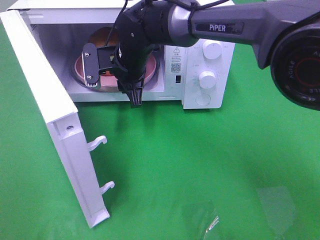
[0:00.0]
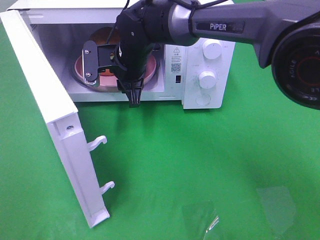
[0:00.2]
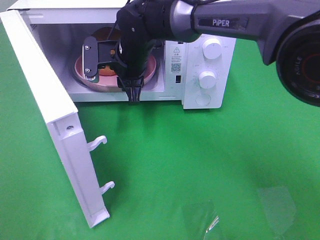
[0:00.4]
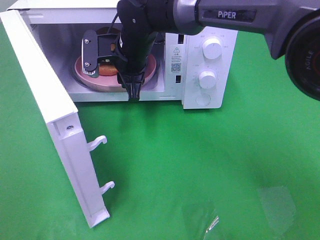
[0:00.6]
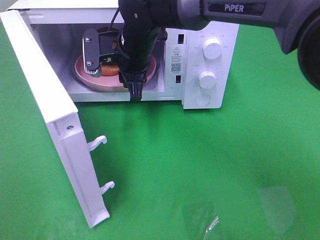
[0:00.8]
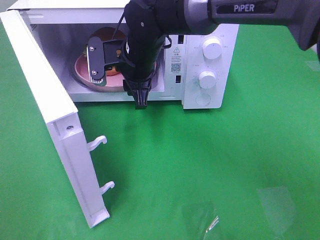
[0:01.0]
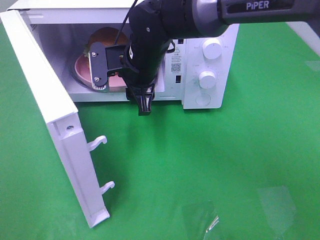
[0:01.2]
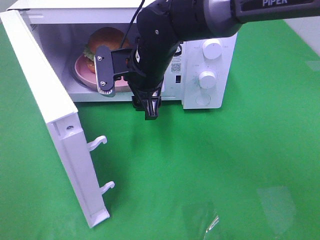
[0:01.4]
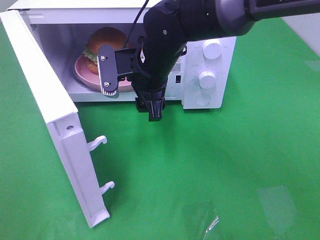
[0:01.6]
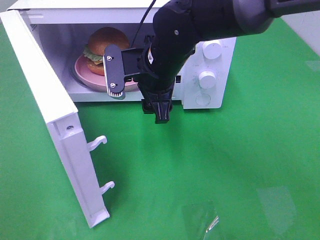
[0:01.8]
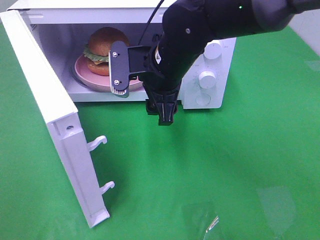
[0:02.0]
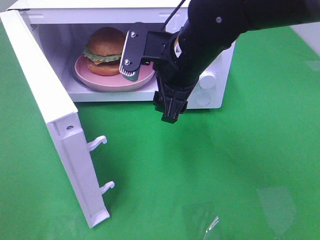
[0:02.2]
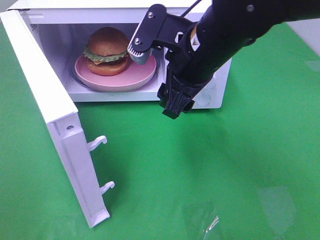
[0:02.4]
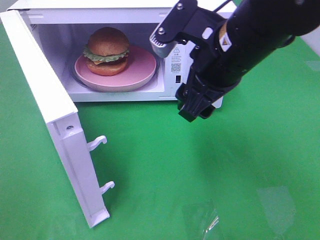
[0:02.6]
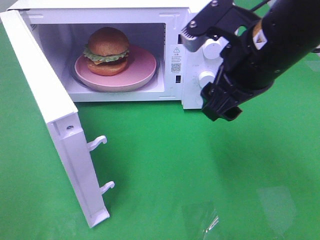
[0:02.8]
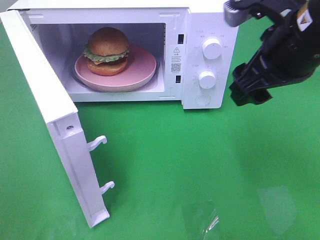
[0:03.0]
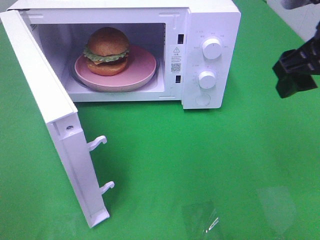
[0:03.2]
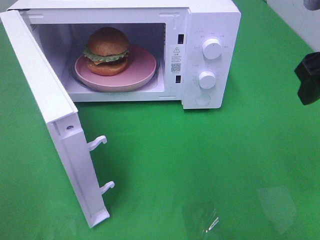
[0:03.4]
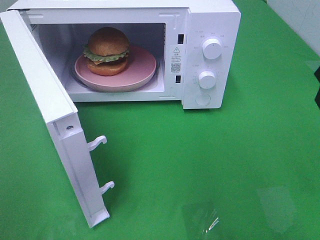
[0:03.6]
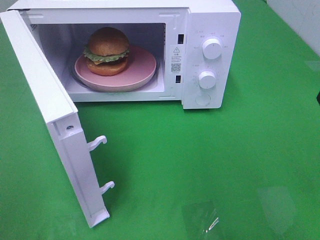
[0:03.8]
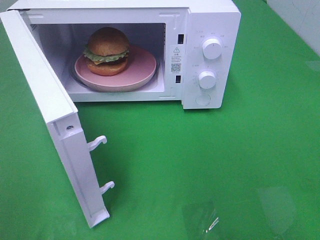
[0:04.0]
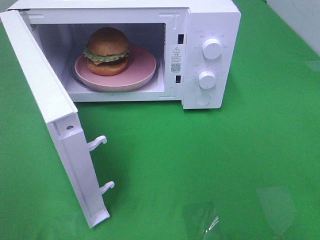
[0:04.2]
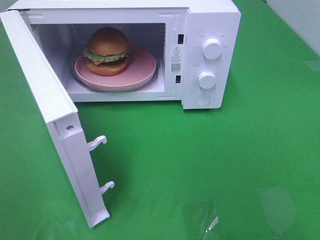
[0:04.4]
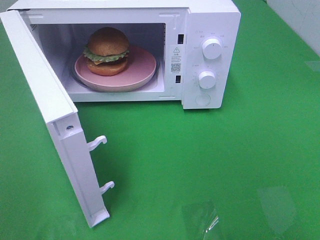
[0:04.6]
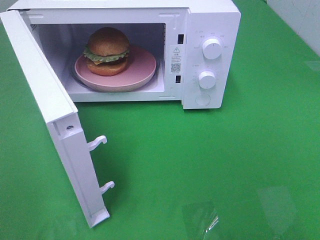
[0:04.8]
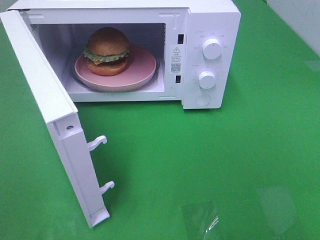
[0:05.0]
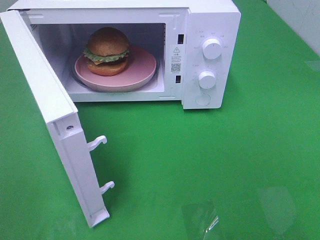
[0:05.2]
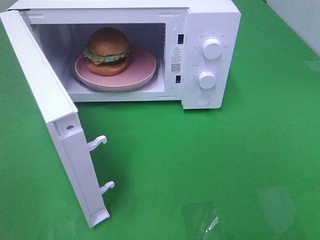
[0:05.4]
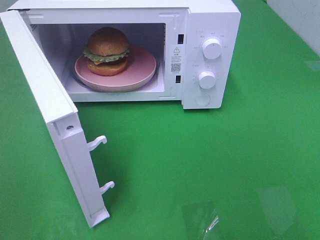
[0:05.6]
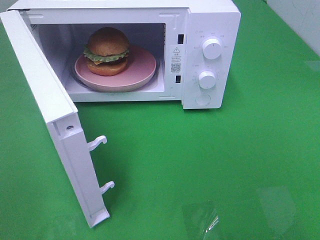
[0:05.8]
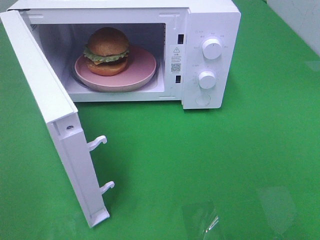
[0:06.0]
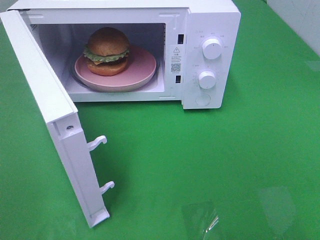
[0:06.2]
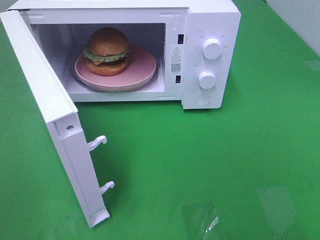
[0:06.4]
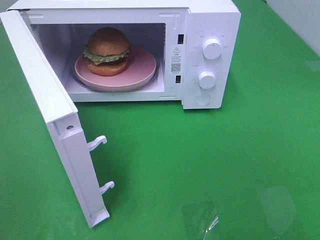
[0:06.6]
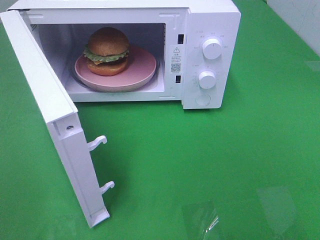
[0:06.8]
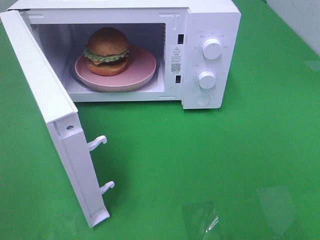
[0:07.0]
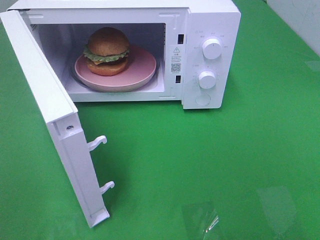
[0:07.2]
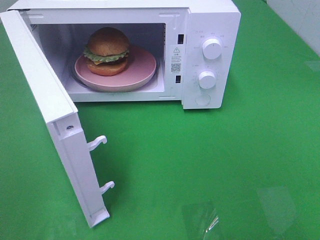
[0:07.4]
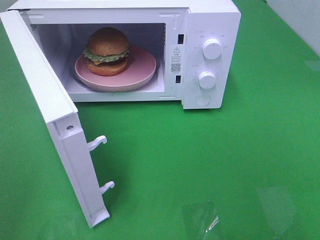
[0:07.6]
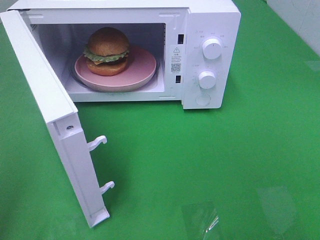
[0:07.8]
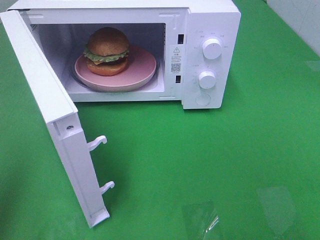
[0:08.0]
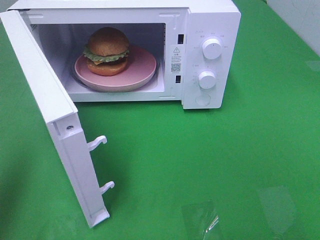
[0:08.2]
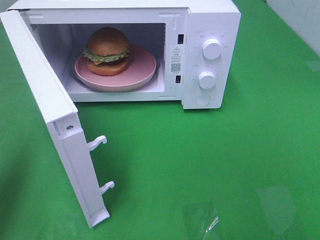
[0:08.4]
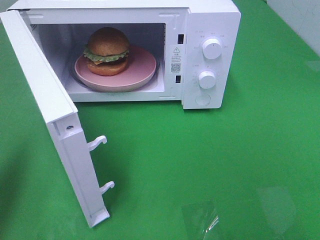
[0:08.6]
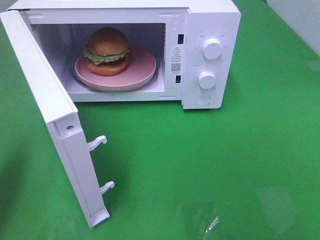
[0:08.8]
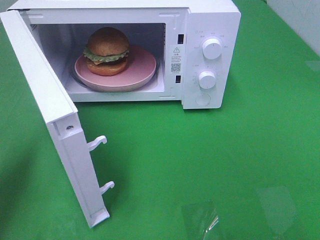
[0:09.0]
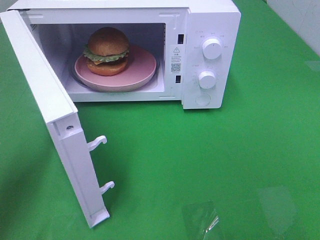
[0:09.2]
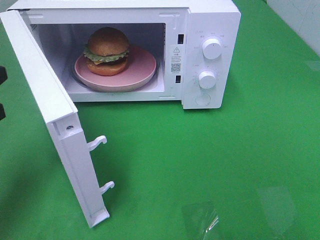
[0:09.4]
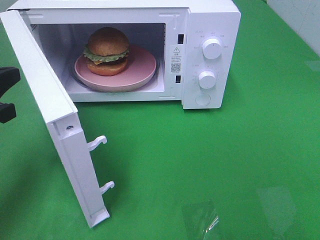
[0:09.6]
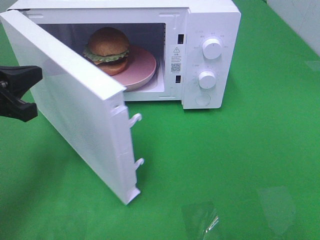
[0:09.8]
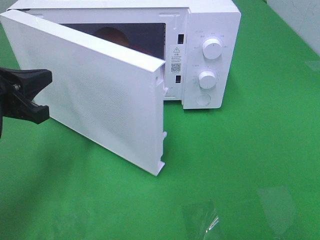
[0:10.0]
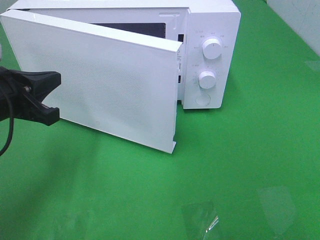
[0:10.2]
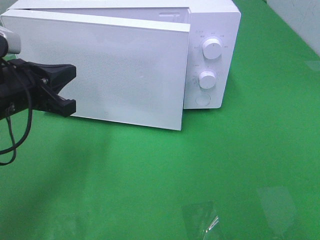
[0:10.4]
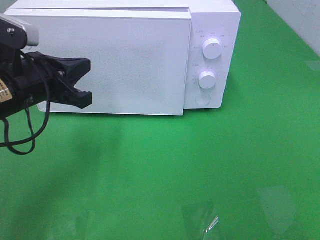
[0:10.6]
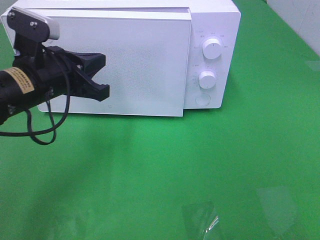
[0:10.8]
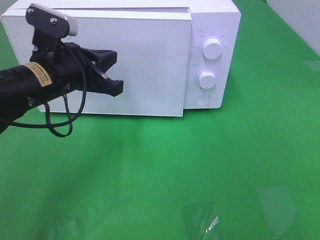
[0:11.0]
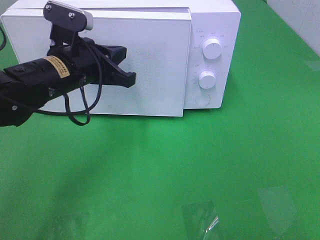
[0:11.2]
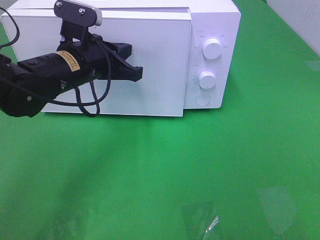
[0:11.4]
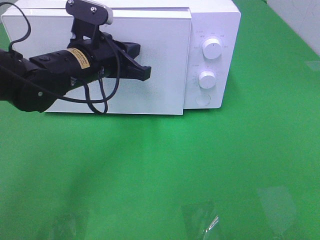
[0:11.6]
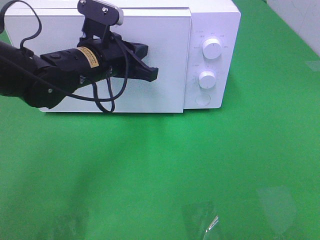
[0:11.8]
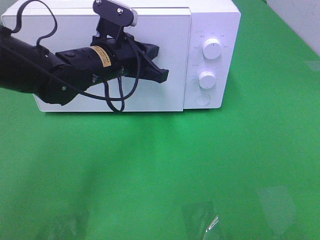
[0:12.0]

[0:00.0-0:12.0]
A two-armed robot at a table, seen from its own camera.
Task of the whole recording: Heat the burger.
0:00.0 to 0:01.6: The right gripper travels backward by about 5 cm.
0:01.6 to 0:03.0: The right gripper goes approximately 20 cm to the right, backward and upward.
0:03.0 to 0:04.4: The right gripper shifts roughly 20 cm backward and to the right.
0:07.6 to 0:09.0: The left gripper is displaced forward and downward by approximately 20 cm, and closes up.
0:09.0 to 0:10.4: The left gripper shifts approximately 10 cm to the right and forward.
0:10.4 to 0:12.0: The left gripper moves to the right and forward, some 15 cm.

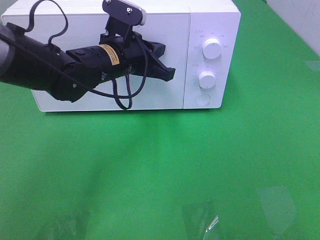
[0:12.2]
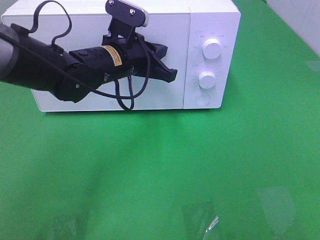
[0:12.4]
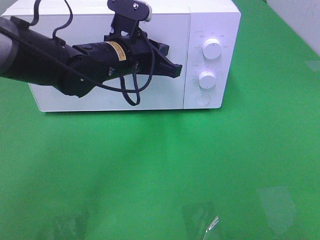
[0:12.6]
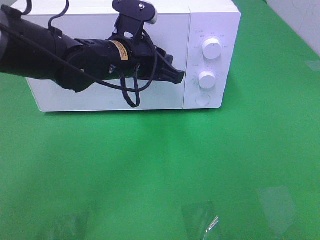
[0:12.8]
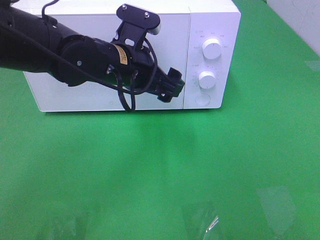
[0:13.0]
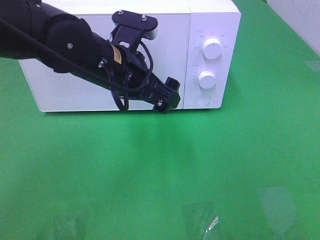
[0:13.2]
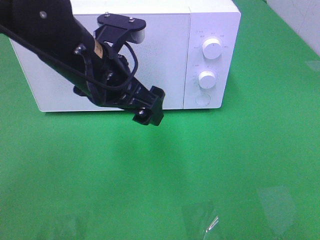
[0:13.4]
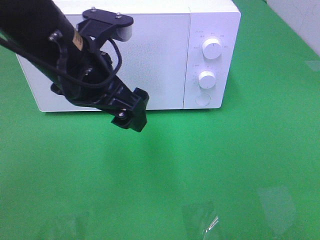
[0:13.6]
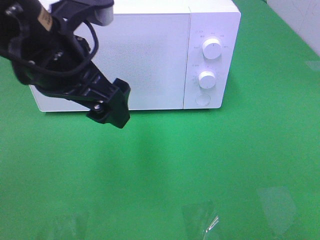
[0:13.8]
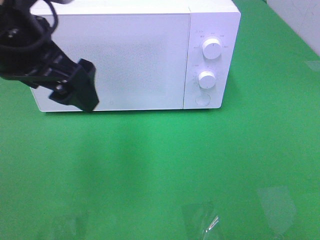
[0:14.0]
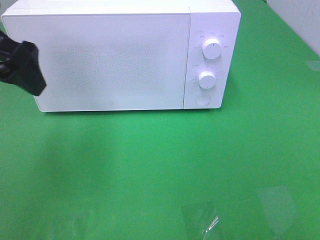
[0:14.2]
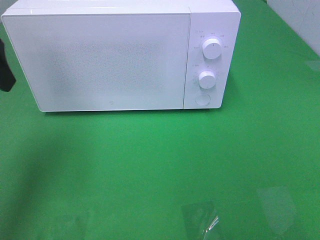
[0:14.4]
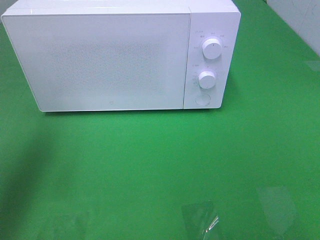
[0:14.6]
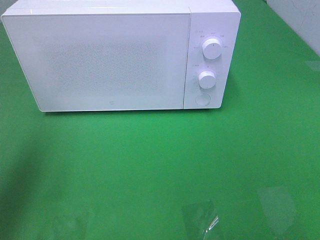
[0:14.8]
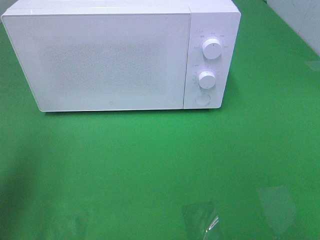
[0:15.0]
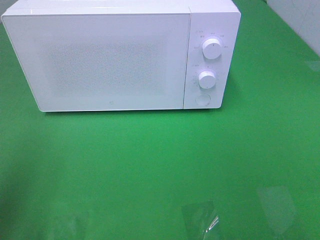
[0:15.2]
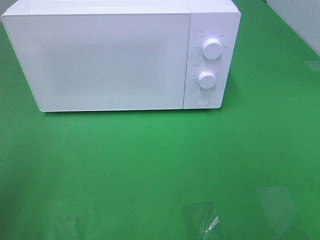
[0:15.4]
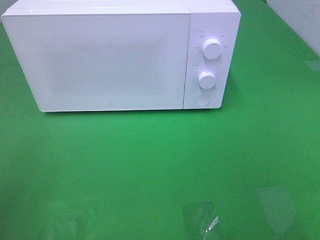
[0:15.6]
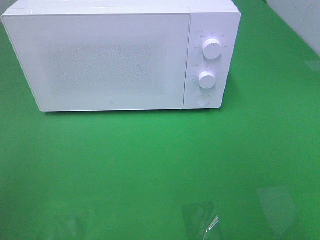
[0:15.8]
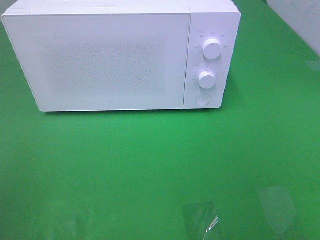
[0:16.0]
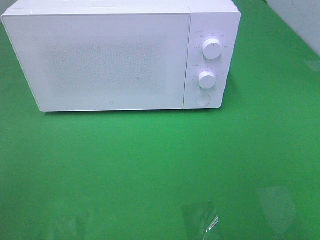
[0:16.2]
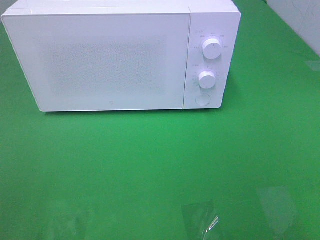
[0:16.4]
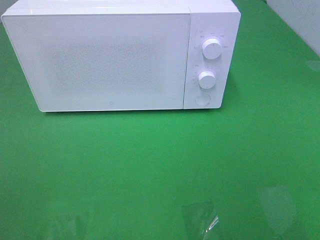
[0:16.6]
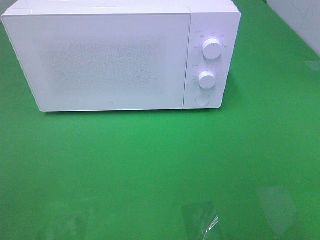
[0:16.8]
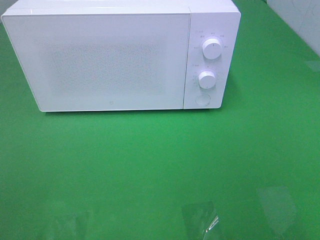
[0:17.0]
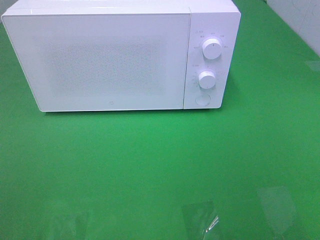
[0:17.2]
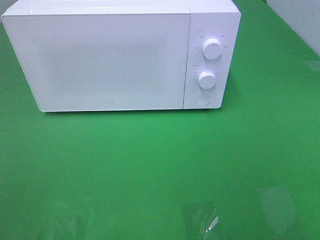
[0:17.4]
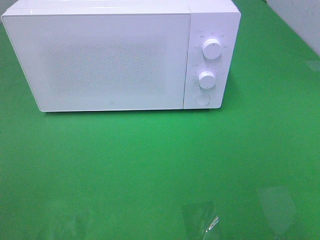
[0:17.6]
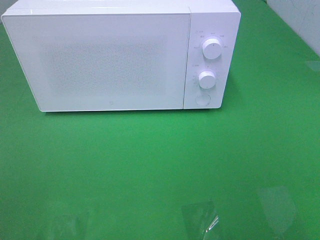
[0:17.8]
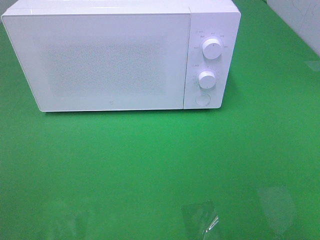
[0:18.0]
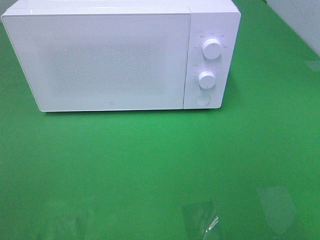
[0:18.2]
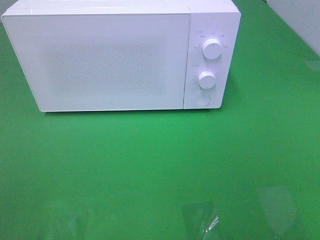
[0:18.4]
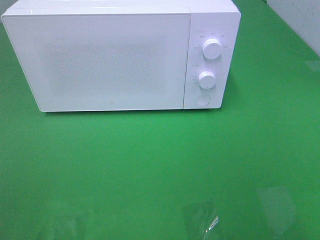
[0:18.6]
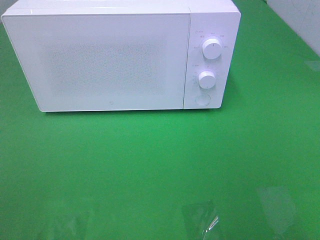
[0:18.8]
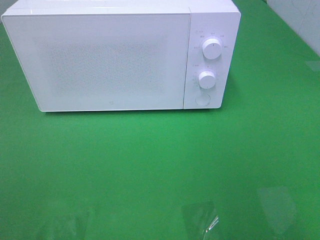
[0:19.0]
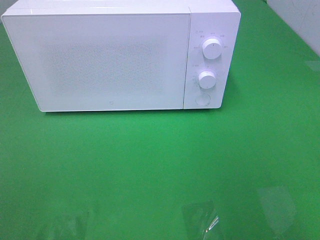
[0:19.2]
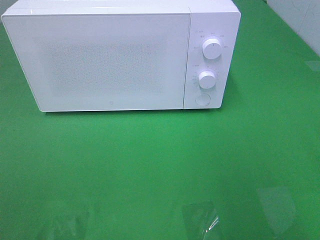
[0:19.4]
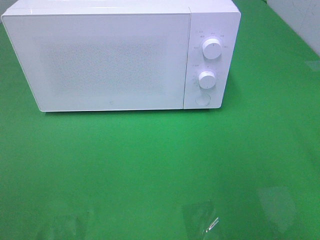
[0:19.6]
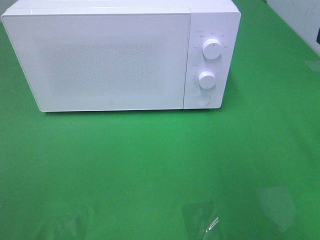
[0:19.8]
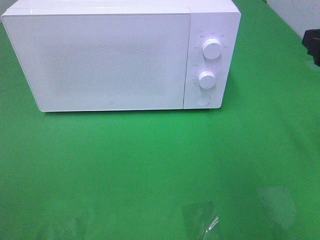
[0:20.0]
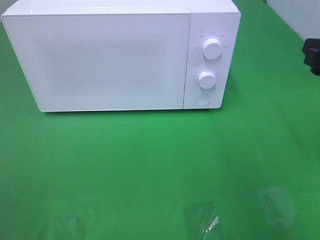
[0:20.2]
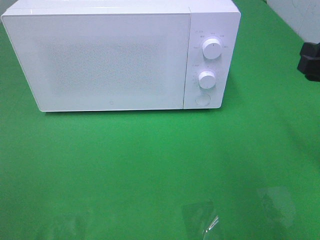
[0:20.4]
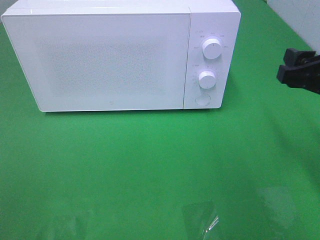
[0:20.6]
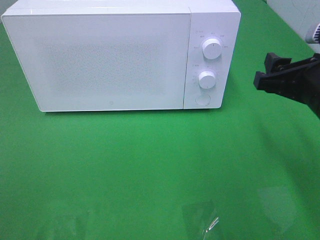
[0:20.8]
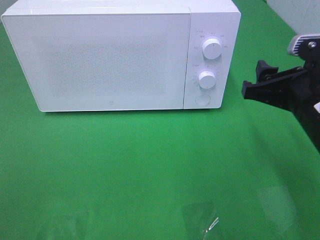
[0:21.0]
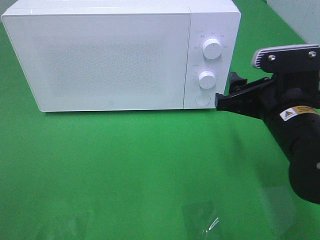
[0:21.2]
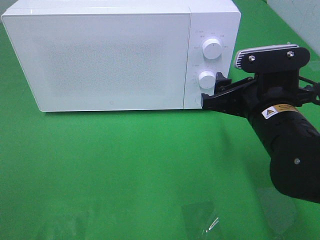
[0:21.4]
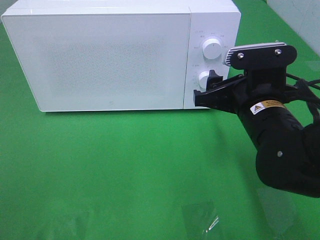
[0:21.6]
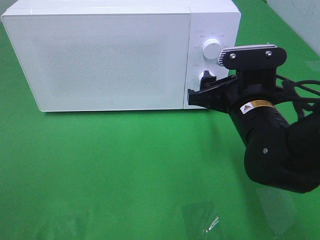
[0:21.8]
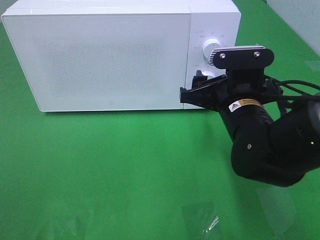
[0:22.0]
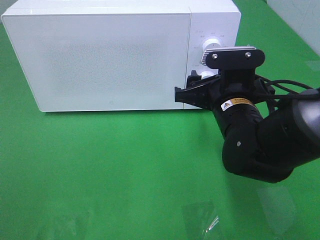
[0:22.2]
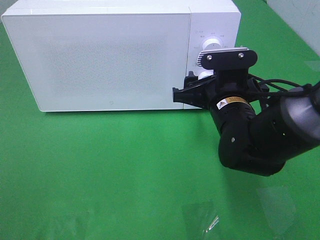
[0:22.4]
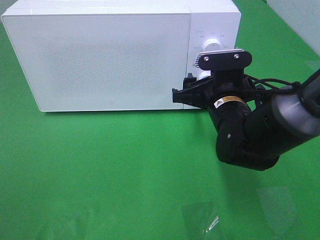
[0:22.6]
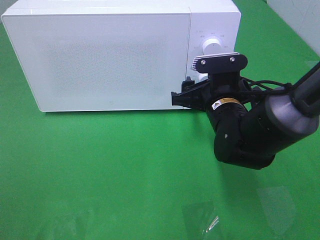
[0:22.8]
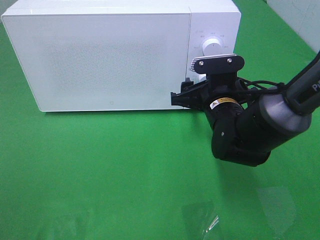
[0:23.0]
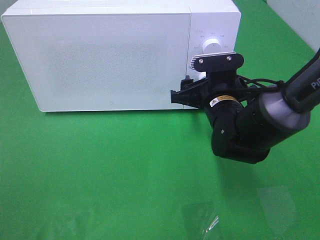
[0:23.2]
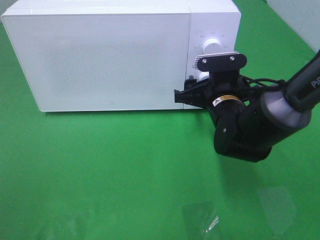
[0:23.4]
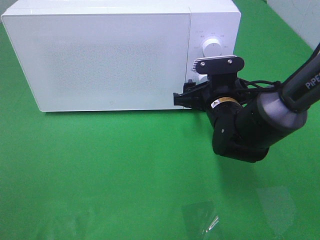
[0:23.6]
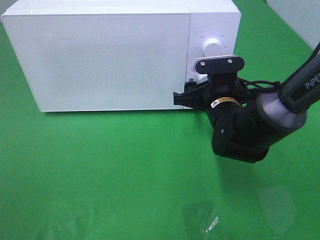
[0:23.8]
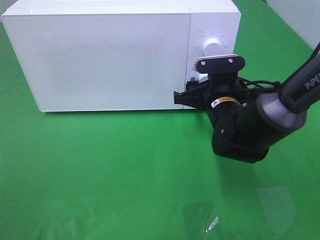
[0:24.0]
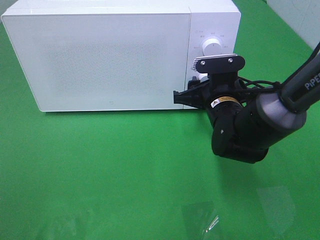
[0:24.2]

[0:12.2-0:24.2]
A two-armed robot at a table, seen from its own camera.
Task of the whole recording: Heat the burger.
0:12.2 to 0:13.8: The left gripper shifts some 15 cm backward and upward, and opens.
0:13.8 to 0:15.2: The left gripper travels to the left and backward by approximately 20 cm.
0:16.6 to 0:18.2: Both grippers stay about where they are.
0:19.8 to 0:21.2: The right gripper goes some 15 cm downward and to the left.
0:21.2 to 0:22.6: The right gripper travels forward and to the left by some 10 cm.
0:22.6 to 0:24.2: The grippers stay close to where they were, moving slightly.
